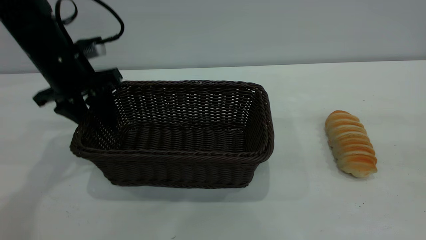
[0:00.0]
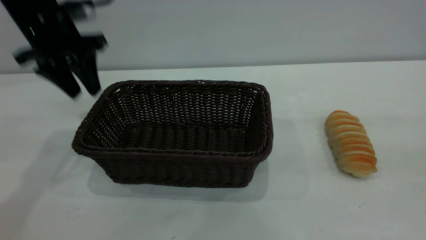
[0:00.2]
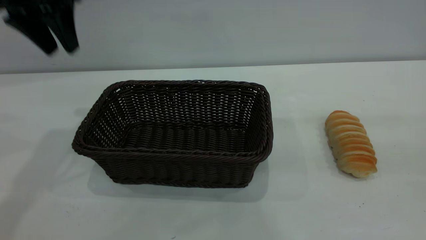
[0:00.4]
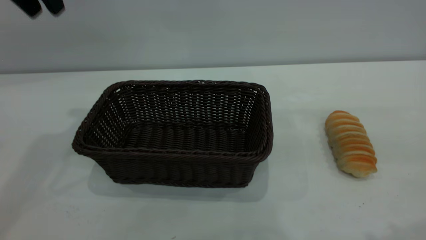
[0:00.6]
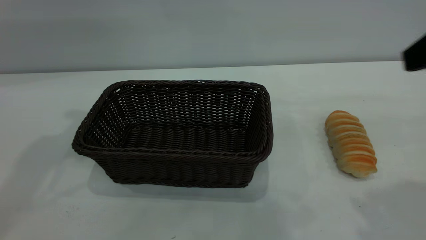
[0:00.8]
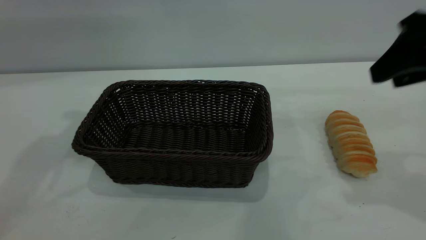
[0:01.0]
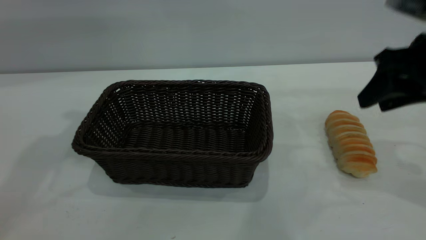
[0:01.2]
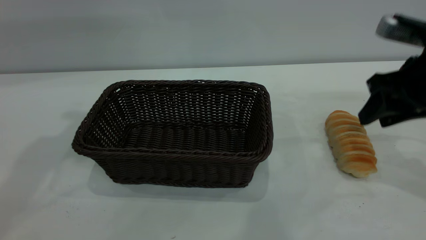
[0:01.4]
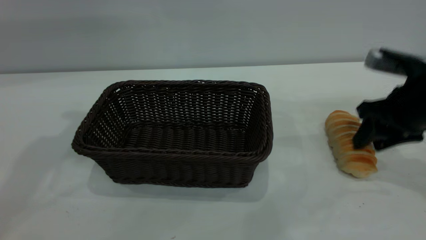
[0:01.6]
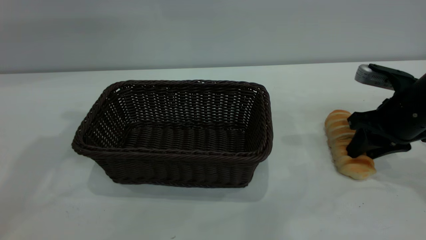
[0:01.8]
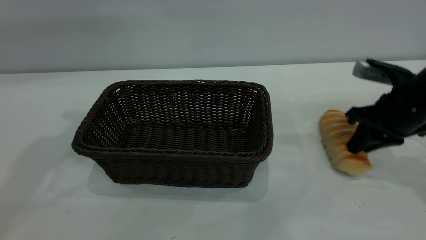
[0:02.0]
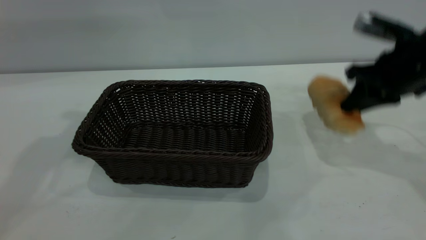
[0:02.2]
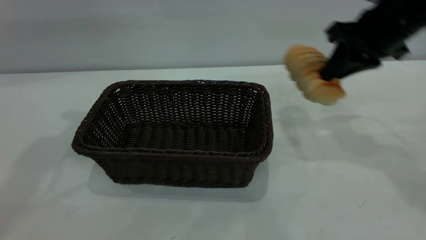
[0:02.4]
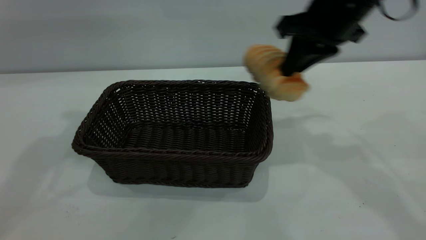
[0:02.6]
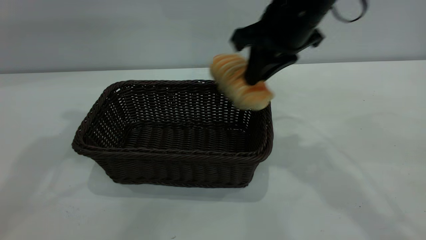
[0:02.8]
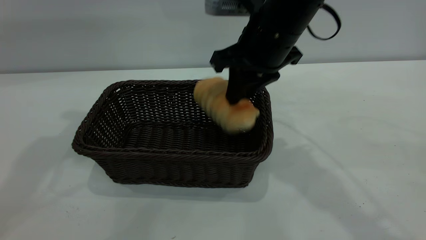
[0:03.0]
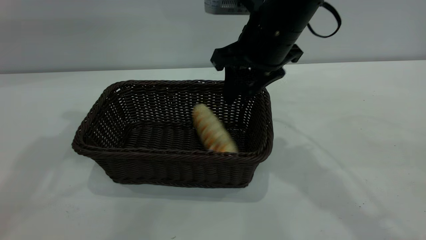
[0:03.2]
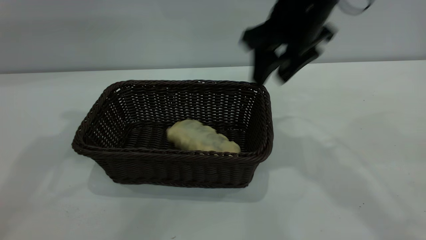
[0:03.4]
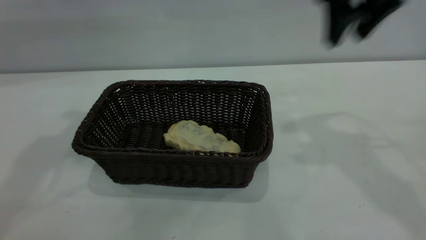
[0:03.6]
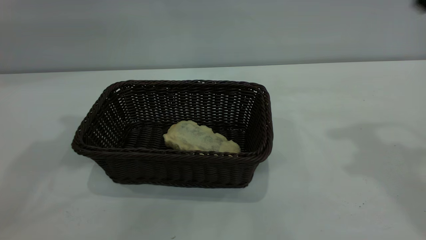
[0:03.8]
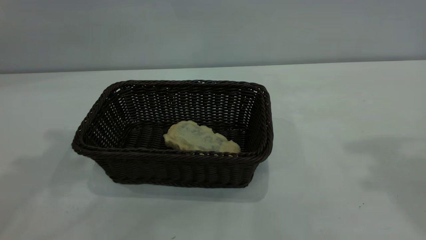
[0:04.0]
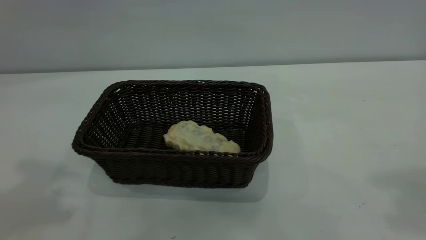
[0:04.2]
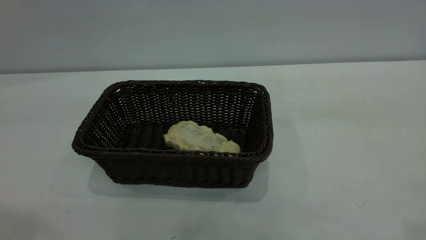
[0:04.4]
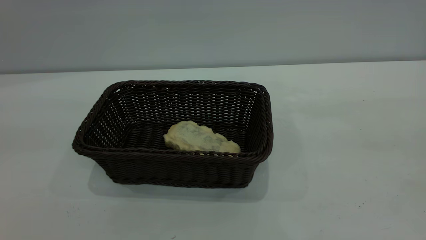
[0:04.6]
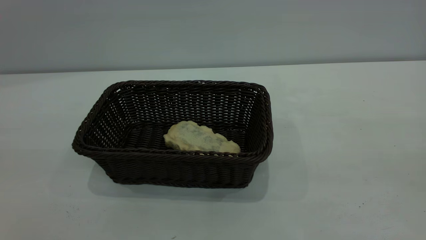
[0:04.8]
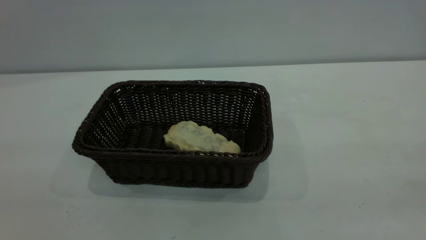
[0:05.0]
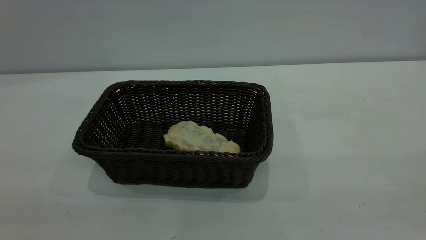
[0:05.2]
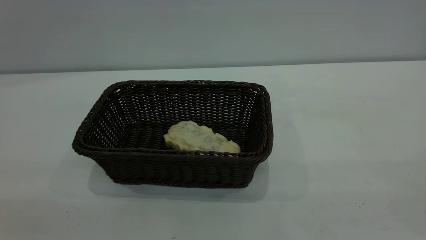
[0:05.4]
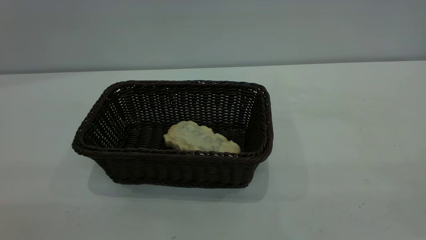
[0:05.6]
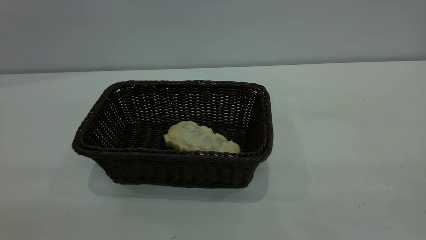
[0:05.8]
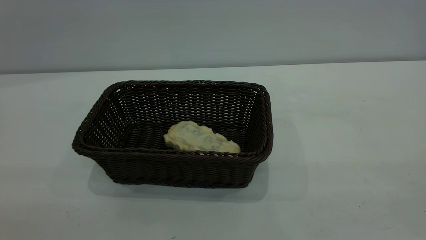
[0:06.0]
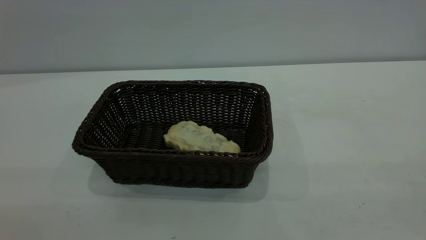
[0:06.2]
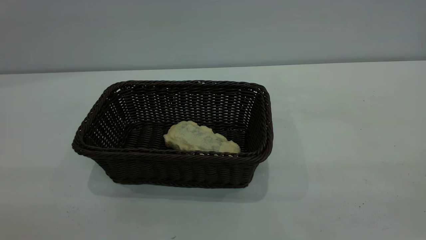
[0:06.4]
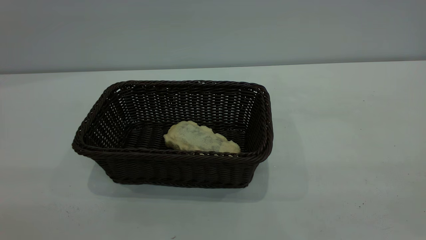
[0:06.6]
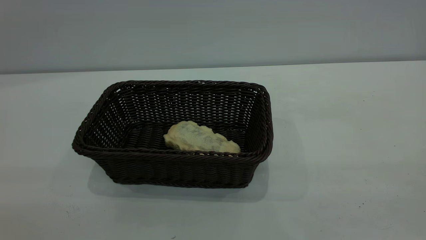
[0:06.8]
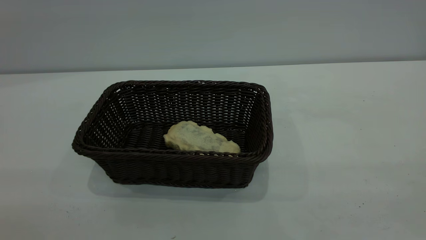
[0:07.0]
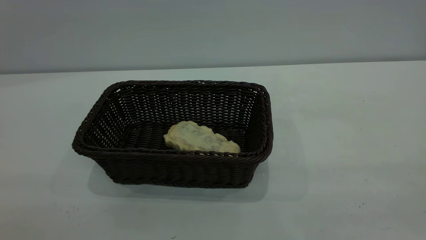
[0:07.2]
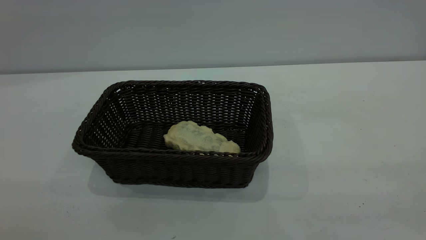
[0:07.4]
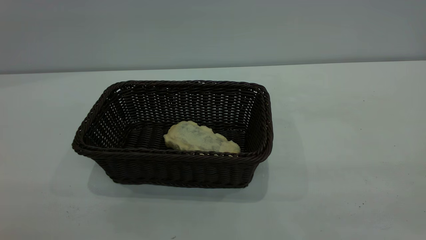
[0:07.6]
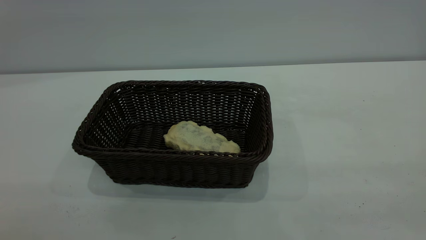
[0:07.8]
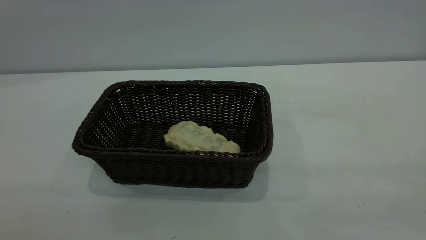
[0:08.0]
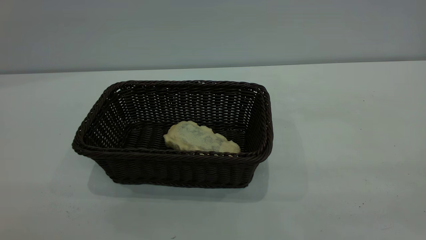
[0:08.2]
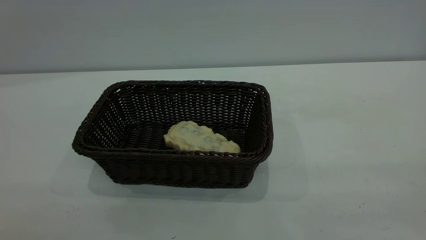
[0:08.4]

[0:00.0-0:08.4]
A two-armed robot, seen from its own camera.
Task of the whole recording: One hand grasps the black basket and places it in the middle of the table, while the other hand picks up the long bread and puts it into the black basket.
Step, 0:02.4 to 0:03.4: place the bread into the basket.
0:00.0 to 0:01.4: The left gripper heads upward, covering some 20 cm. Meanwhile the right gripper goes roughly 25 cm forward and downward.
0:01.4 to 0:02.8: The right gripper shifts some 20 cm to the left, and closes.
0:02.8 to 0:04.2: The right gripper shifts roughly 35 cm upward, to the right and backward, and opens its fingers; the left gripper is displaced backward and upward by approximately 15 cm.
